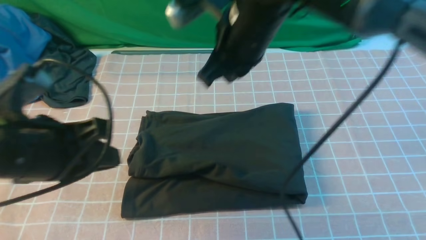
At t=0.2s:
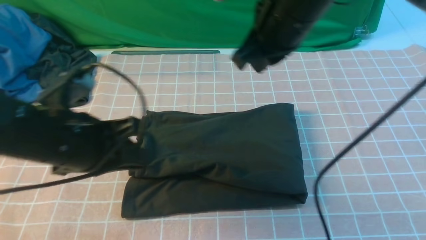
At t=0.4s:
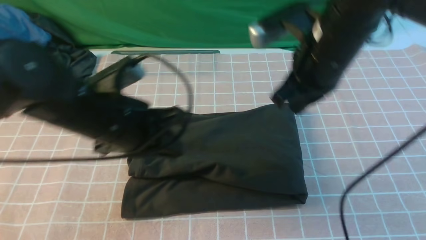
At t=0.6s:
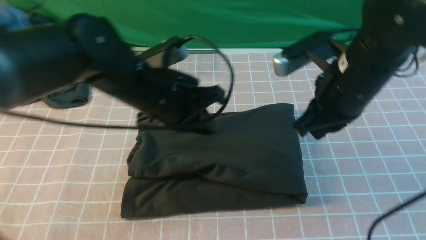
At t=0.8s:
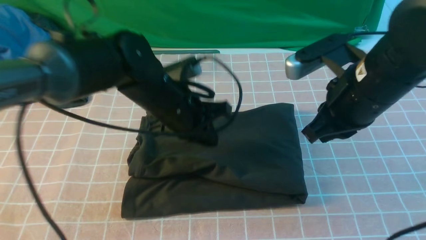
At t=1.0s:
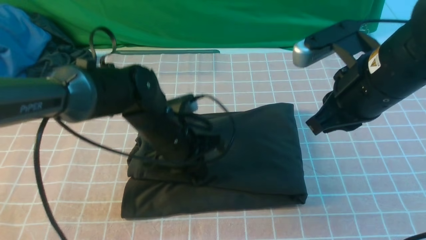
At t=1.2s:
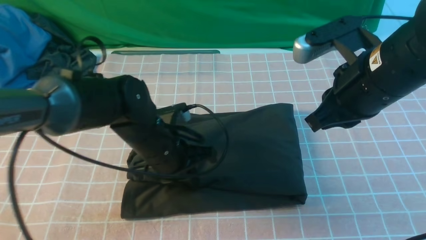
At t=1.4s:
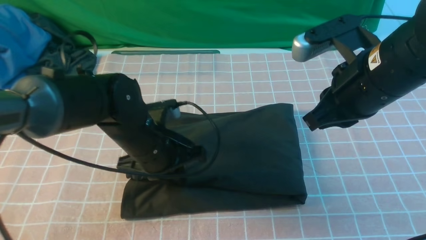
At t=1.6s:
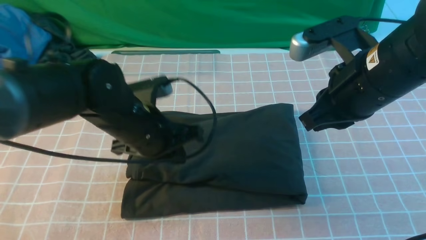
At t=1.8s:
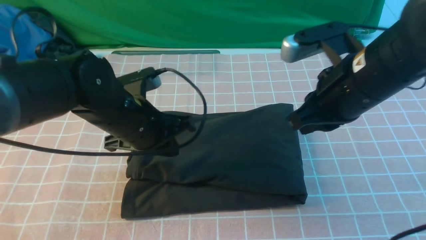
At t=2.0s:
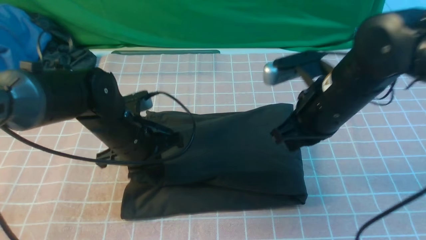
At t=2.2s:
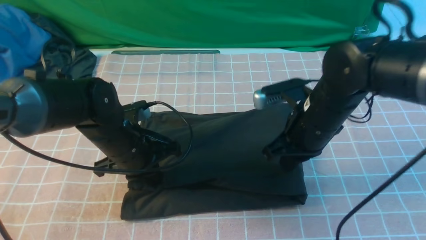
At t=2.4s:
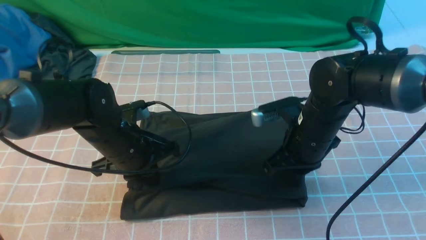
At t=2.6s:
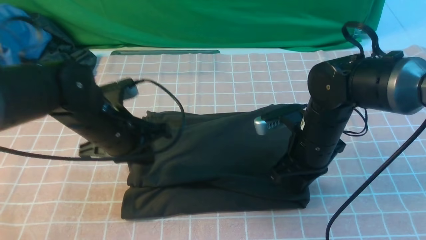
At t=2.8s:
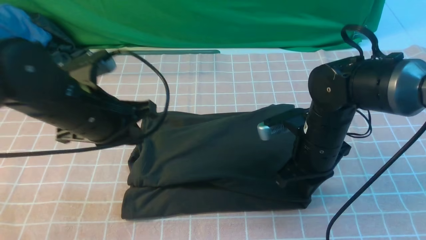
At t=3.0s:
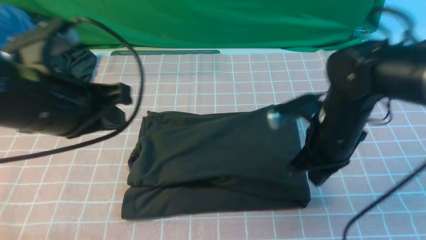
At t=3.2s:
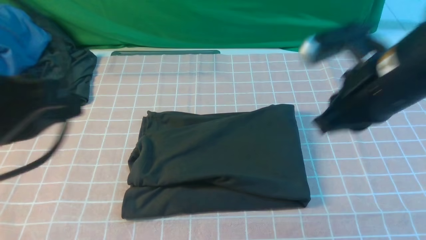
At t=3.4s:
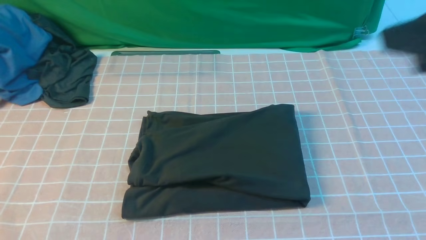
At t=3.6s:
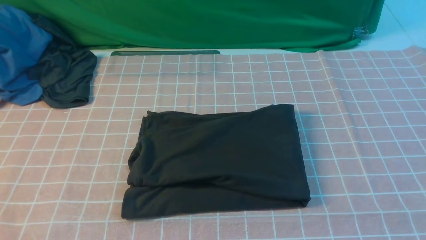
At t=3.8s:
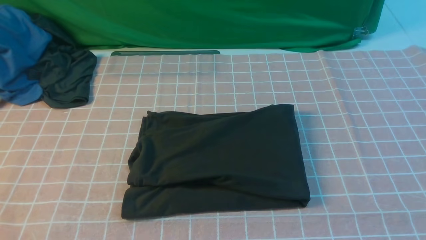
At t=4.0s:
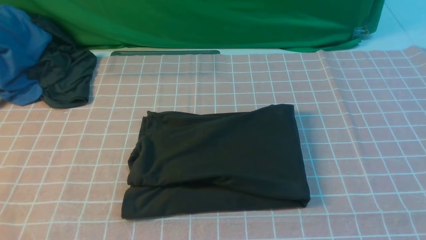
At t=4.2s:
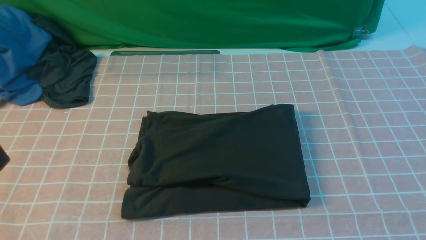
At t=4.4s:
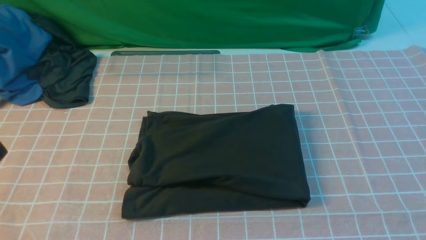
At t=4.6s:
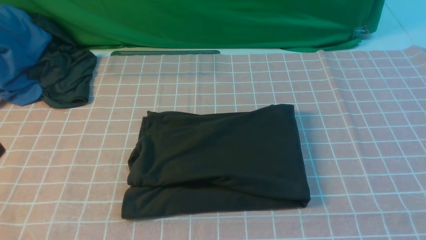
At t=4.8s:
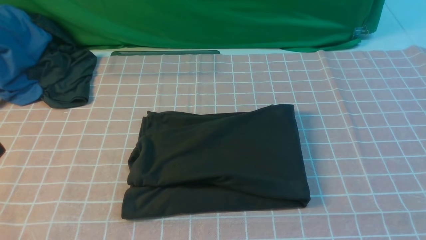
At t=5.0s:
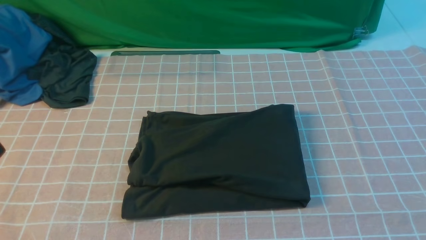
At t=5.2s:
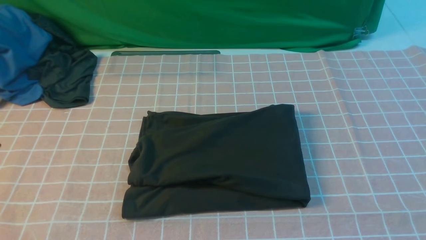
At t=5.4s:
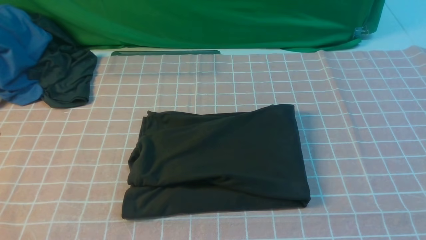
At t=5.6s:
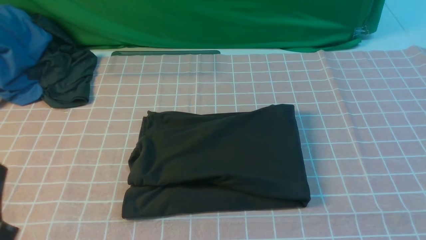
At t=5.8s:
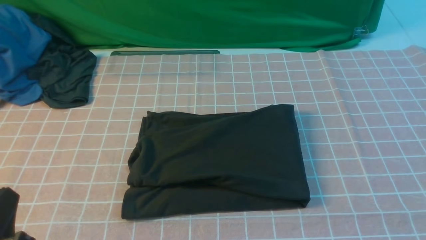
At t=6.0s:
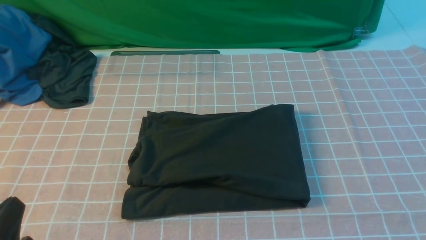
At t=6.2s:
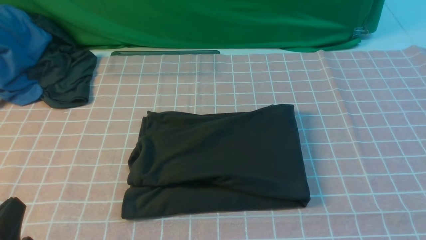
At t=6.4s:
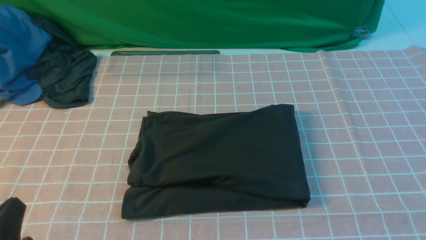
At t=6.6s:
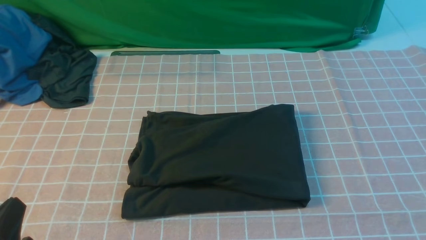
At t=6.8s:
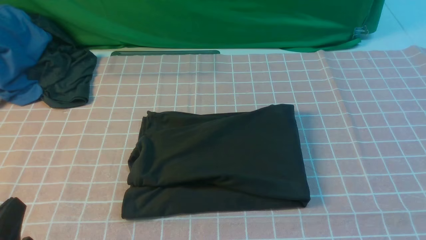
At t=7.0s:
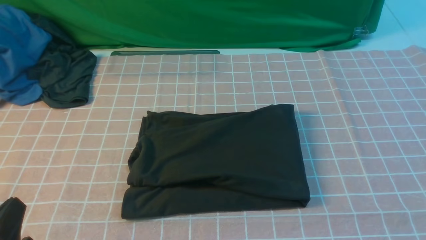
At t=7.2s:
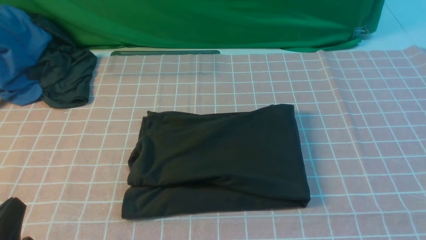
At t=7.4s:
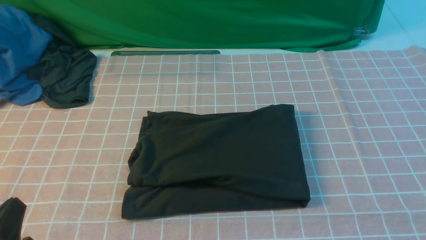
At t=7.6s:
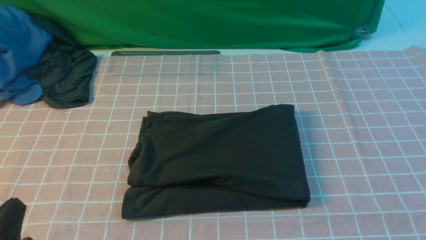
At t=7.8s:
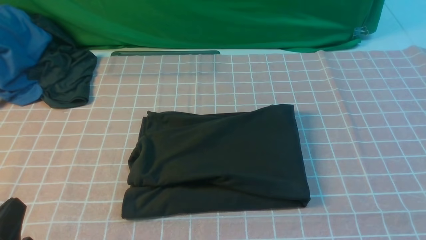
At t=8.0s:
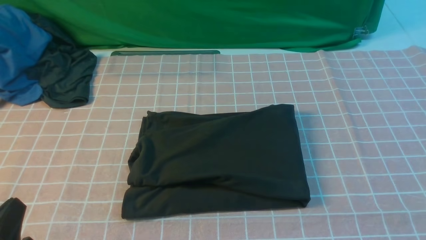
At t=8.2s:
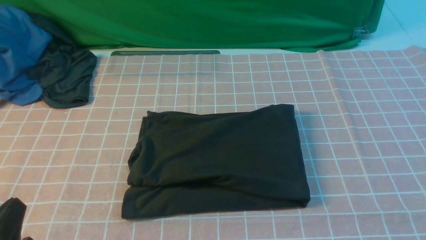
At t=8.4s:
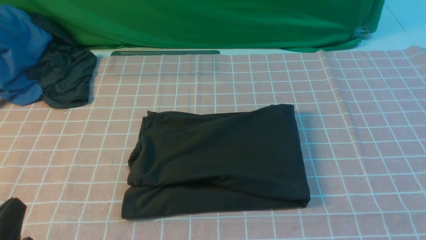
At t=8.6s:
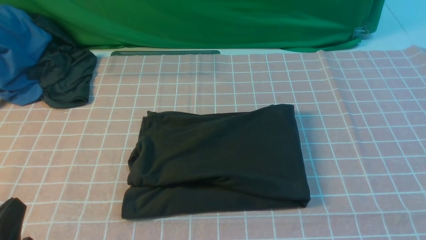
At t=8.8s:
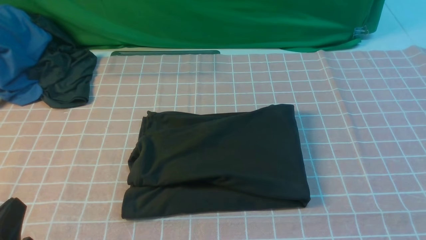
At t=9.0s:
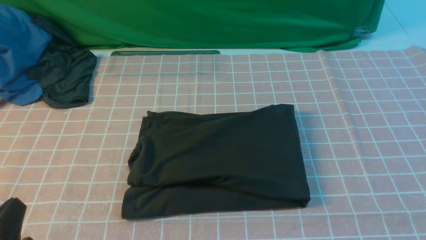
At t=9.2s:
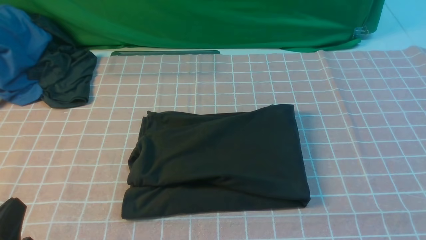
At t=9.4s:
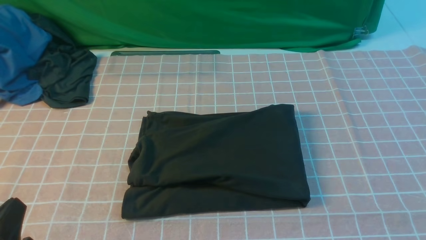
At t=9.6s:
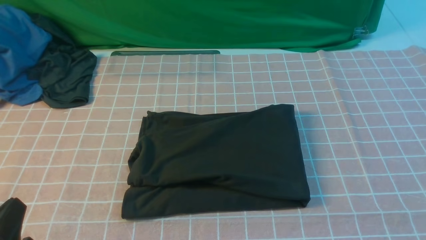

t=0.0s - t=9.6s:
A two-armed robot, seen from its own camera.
t=0.0s - t=1.6s: The right gripper moves to the right and backward, about 15 cm. Meanwhile the left gripper is displaced forward, downward and to the right by some 15 cm.
t=1.6s - t=3.2s: The right gripper travels downward and back again, about 15 cm each way. Meanwhile the left gripper travels upward, backward and to the left by approximately 25 cm.
t=3.2s - t=4.8s: The left gripper shifts about 10 cm backward; the right gripper shifts approximately 25 cm backward and to the right.
t=4.8s - t=6.4s: The left gripper travels downward by roughly 15 cm.
t=8.0s - t=9.6s: Neither gripper changes place.
